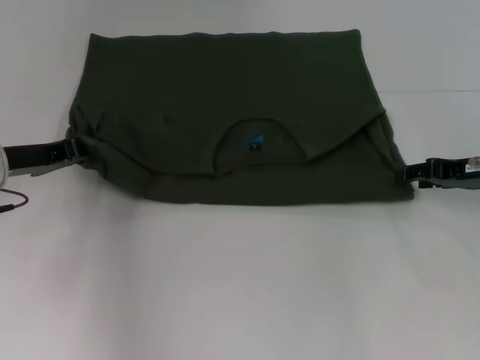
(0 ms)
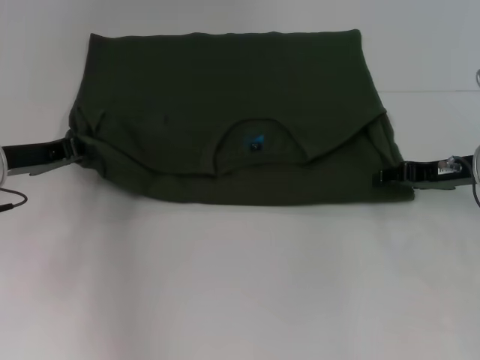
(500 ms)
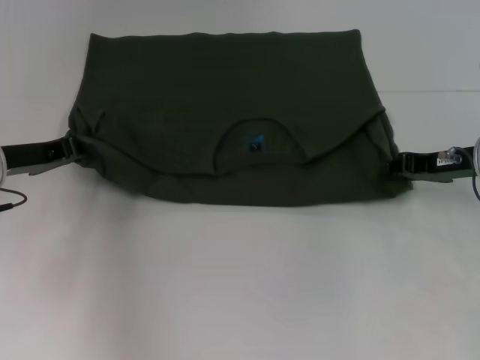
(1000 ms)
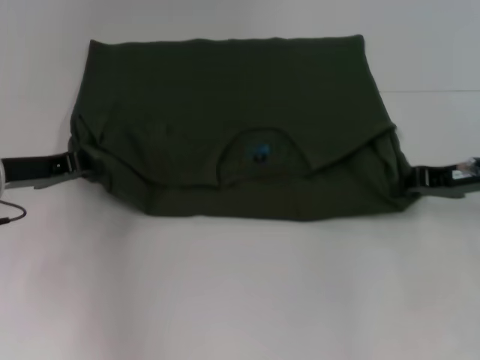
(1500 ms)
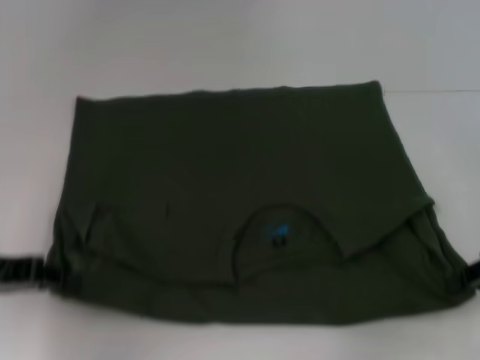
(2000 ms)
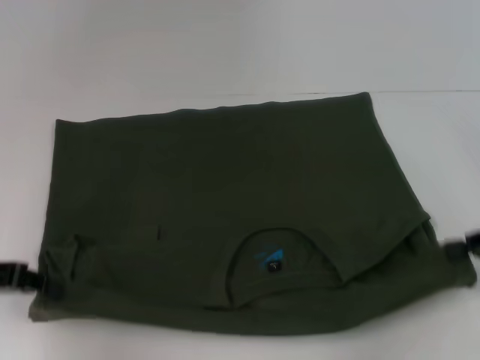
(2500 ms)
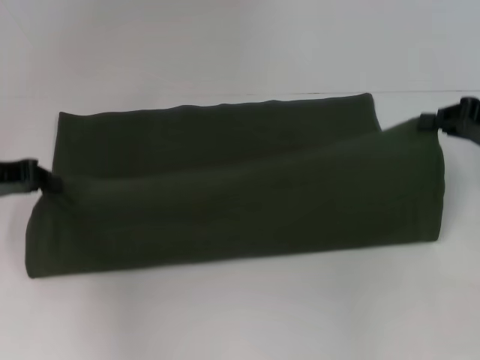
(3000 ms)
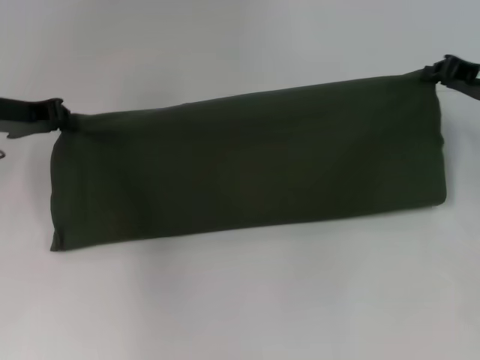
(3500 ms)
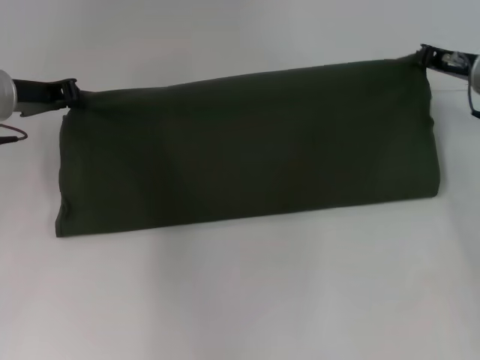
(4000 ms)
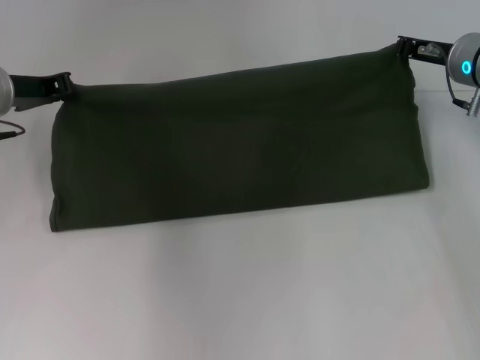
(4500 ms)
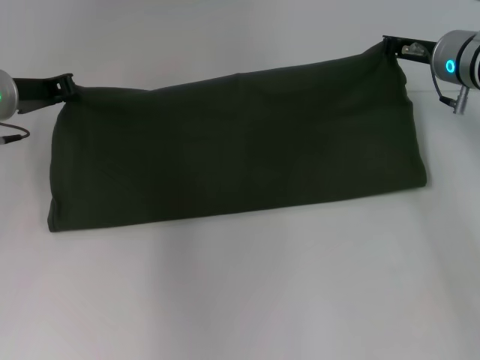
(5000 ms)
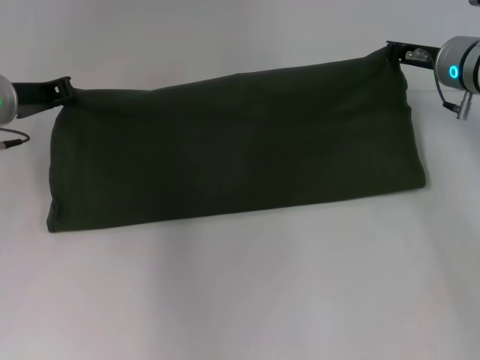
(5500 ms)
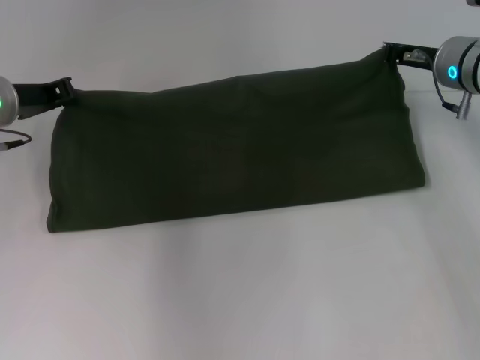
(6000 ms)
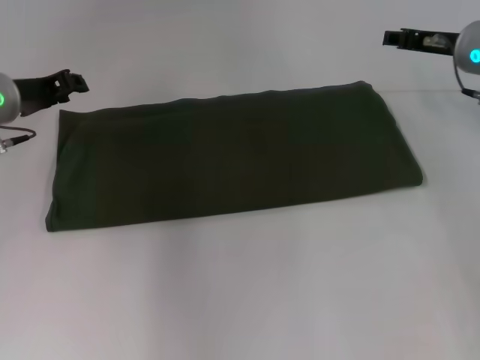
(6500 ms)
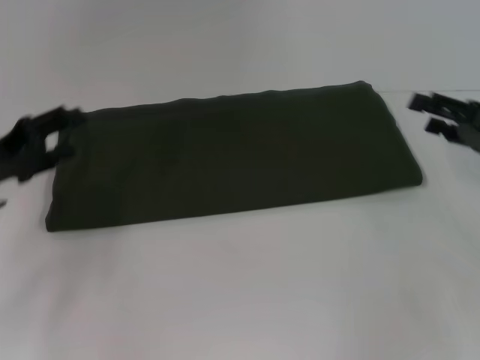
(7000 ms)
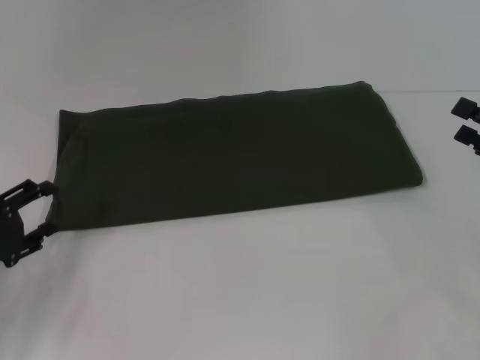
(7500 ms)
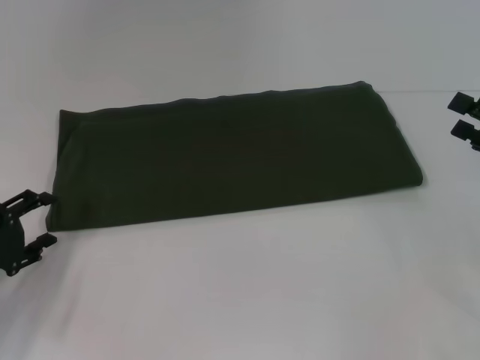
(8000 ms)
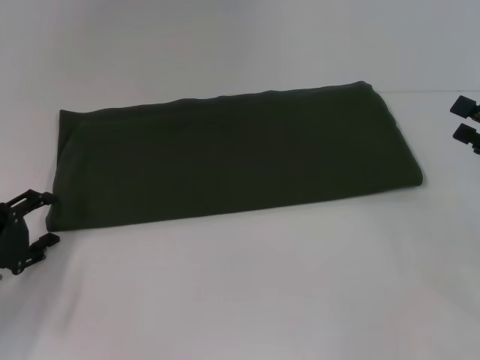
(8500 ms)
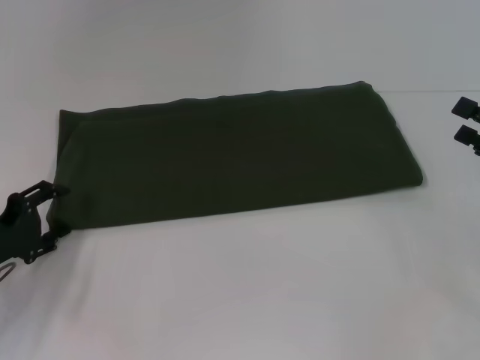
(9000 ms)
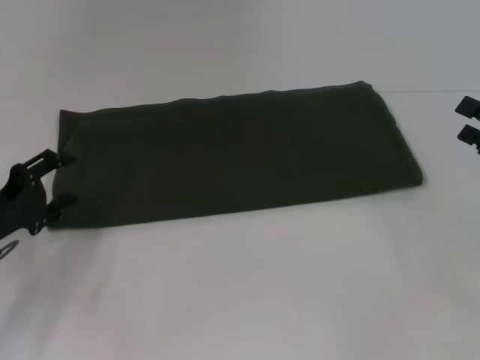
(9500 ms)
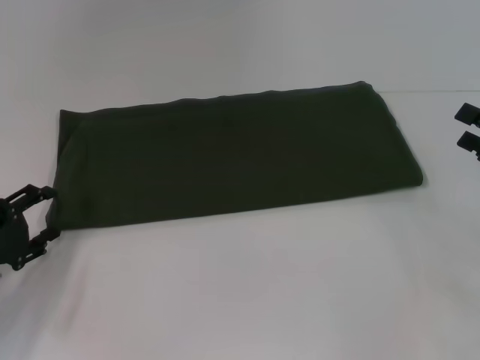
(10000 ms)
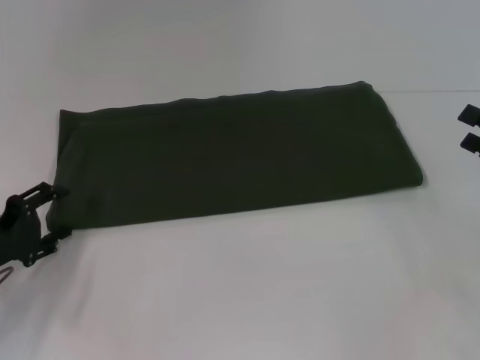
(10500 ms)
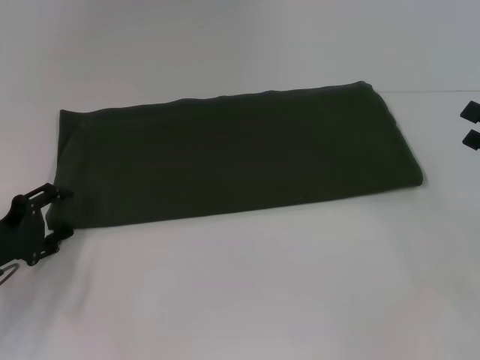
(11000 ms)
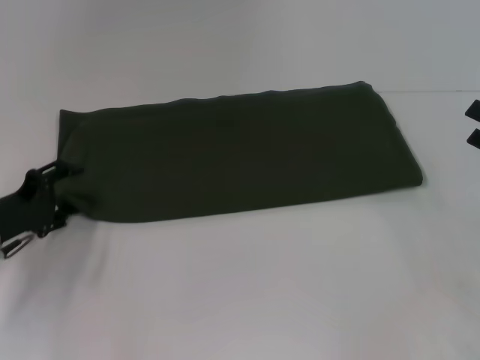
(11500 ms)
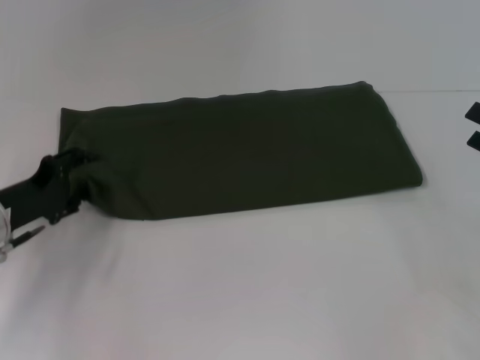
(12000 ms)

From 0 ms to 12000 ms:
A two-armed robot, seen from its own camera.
Step, from 0 ms to 2000 ms: Pull the clothes with your left hand.
Step, from 0 ms to 2000 ms: Pull the clothes with your right hand.
Step, from 2500 ms to 7000 ms: Fold the clothes with your right hand.
From 0 ms to 2000 ms: Both grippers travel together backward, approximately 10 cm. The right gripper closes its fingers.
From 2000 ms to 4000 ms: The right gripper travels forward and to the left by some 15 cm, while the left gripper travels forward by approximately 15 cm.
From 4000 ms to 6000 ms: The grippers move only a little.
From 6000 ms to 8000 ms: The left gripper heads backward and downward, covering some 20 cm, and opens; the right gripper heads backward and to the right, covering about 20 cm, and opens.
From 8000 ms to 10000 ms: The grippers stay close to where they were, moving slightly.
From 10000 ms to 12000 ms: The left gripper moves forward, about 5 cm.

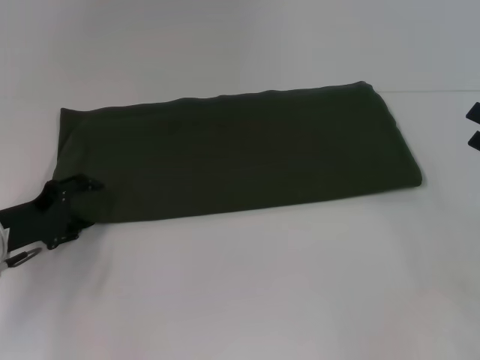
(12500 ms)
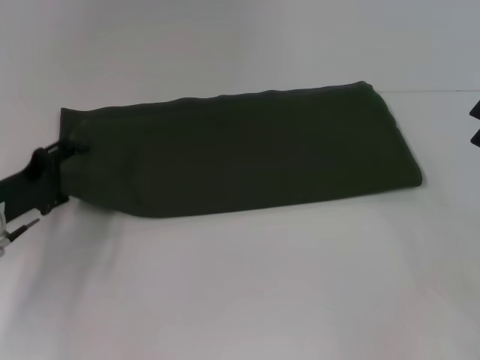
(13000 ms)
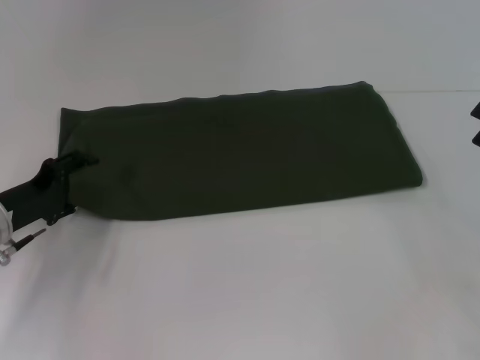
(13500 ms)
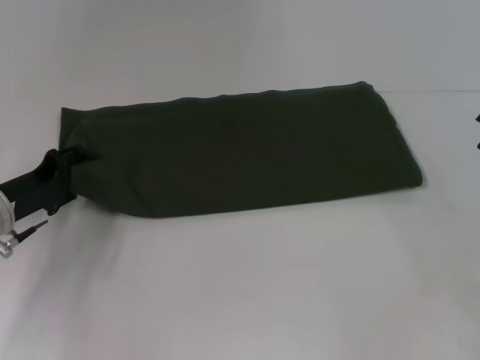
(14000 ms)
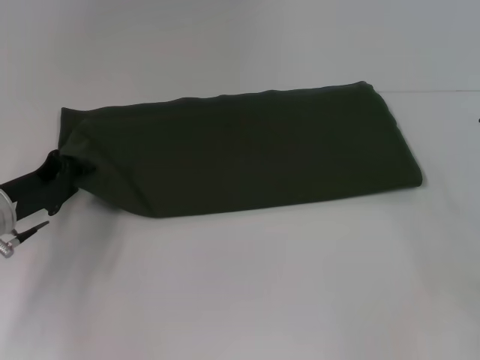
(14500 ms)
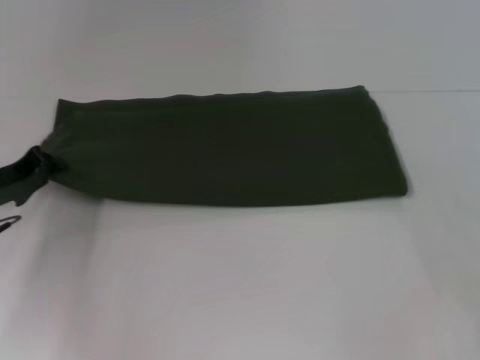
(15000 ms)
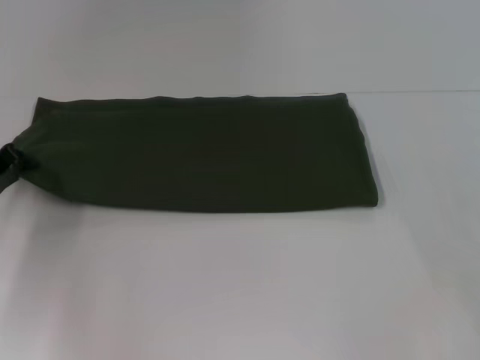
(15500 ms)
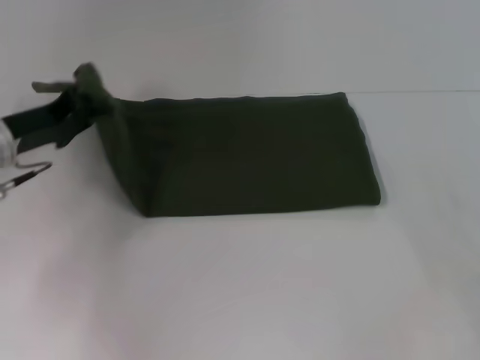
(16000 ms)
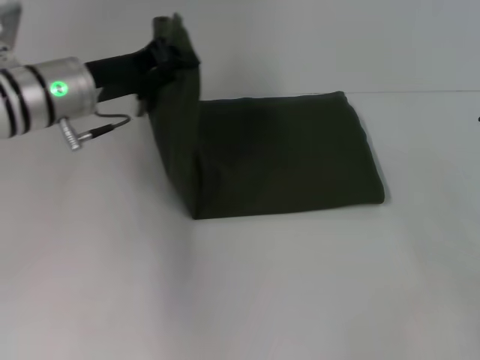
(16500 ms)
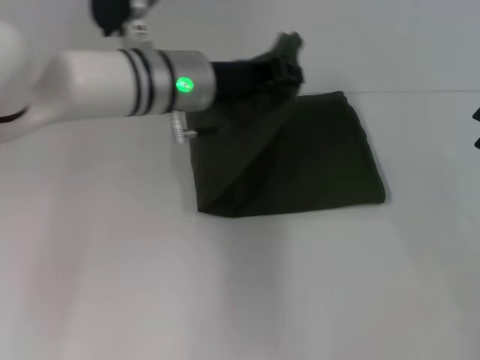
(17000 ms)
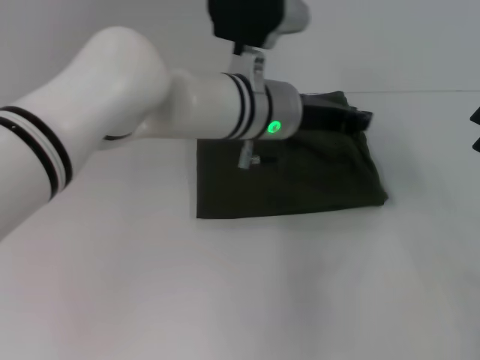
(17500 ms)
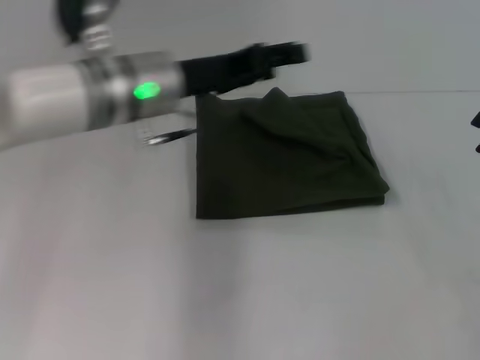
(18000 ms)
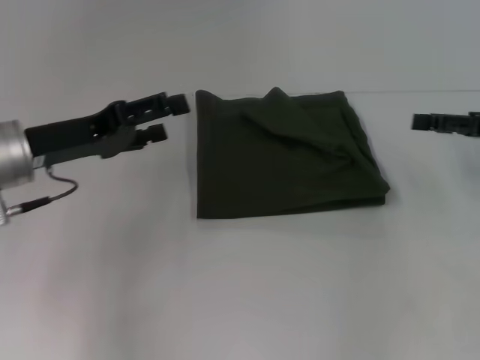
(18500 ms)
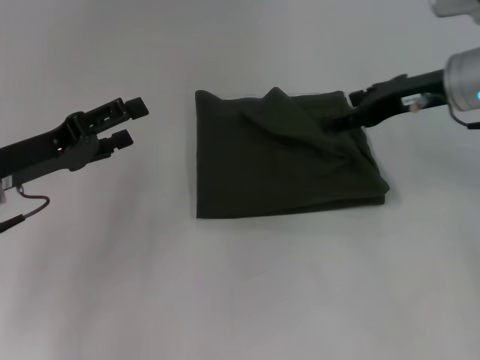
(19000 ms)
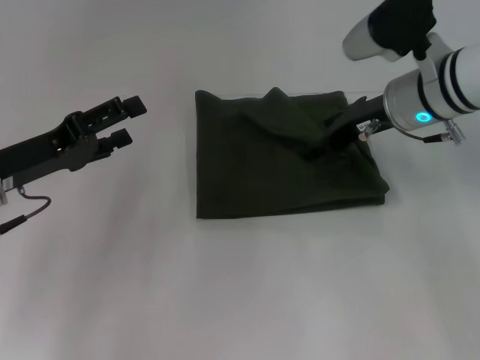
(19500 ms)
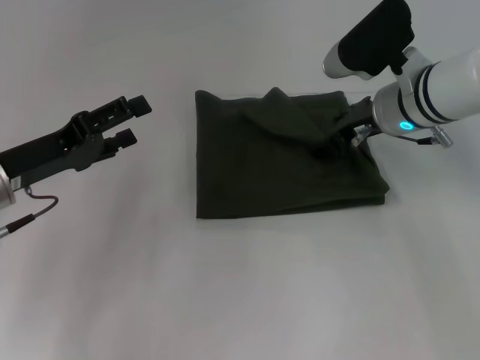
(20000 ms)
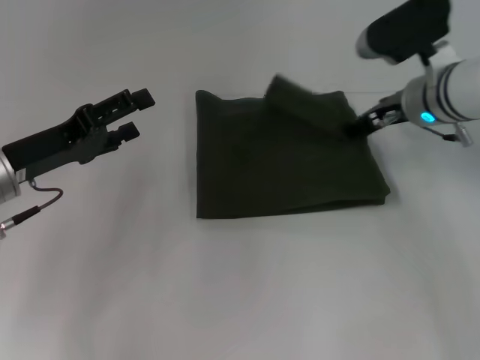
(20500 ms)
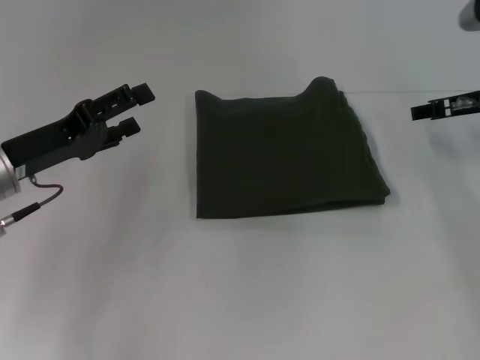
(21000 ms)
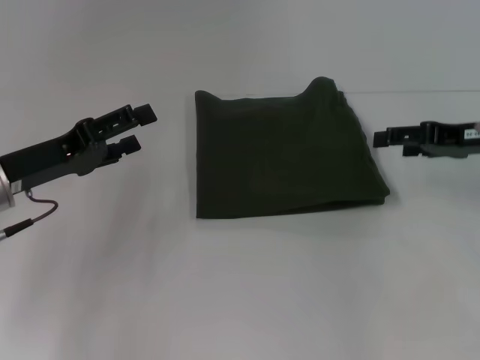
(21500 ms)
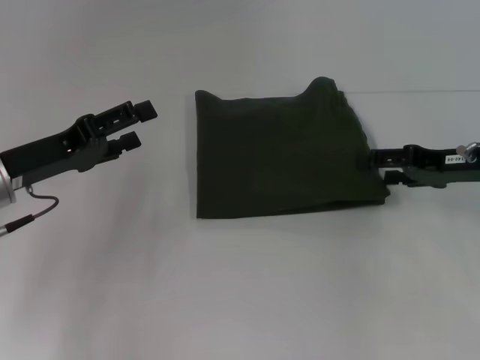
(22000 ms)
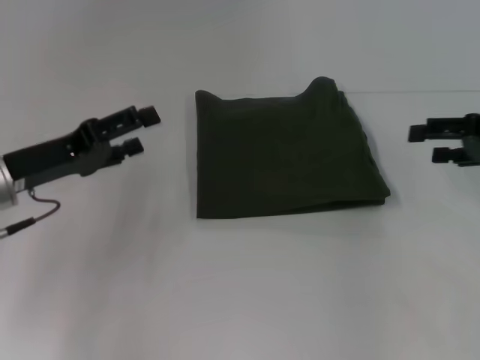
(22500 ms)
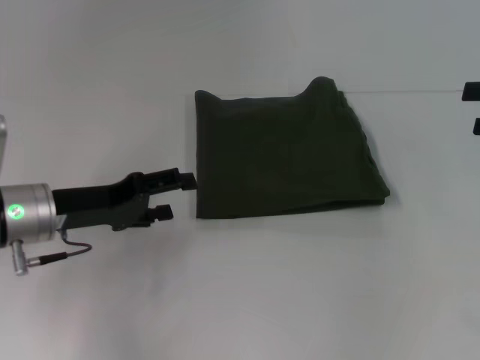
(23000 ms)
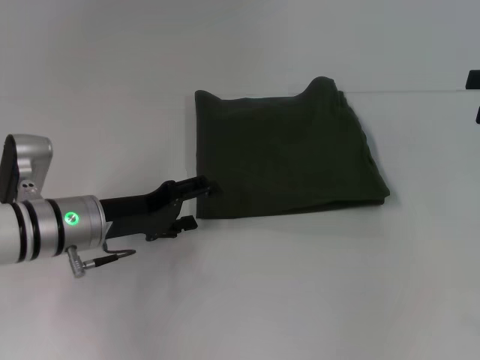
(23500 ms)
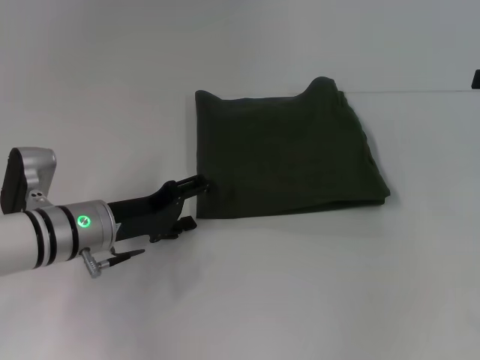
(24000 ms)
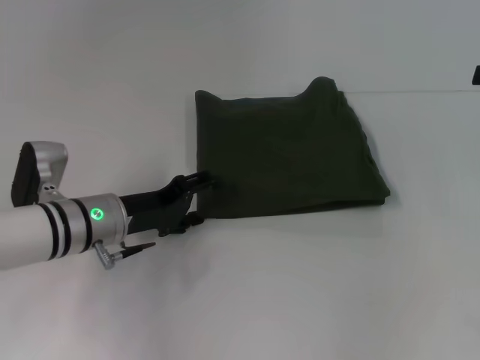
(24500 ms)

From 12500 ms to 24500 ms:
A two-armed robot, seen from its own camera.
Step, from 12500 ms to 18000 ms: Fold the clothes with your left hand.
From 12500 ms to 14500 ms: The left gripper closes up.
From 14500 ms to 16500 ms: The left gripper moves upward, to the right and forward, roughly 15 cm, and closes its fingers.
From 16500 ms to 18500 ms: The left gripper goes about 5 cm backward, reaches roughly 20 cm to the right, then returns, and opens. The right gripper shifts some 10 cm forward and upward.
From 18500 ms to 20500 ms: The right gripper shifts about 15 cm to the left and forward.
From 20500 ms to 22500 ms: The right gripper goes about 15 cm to the right and backward.
From 22500 ms to 24500 ms: The right gripper ends up roughly 5 cm from where it was, while the left gripper travels to the right and downward by approximately 10 cm.

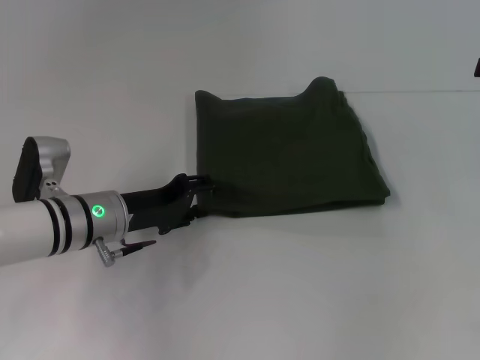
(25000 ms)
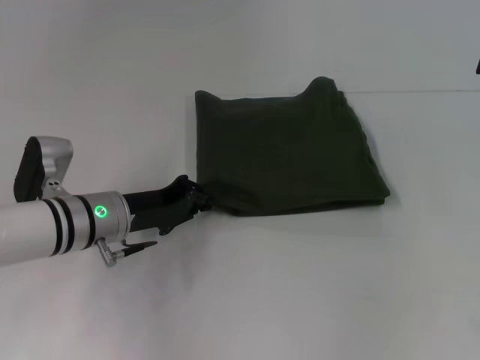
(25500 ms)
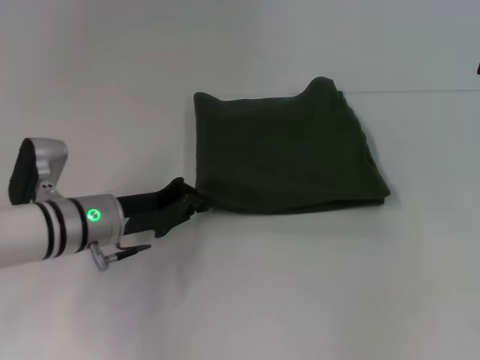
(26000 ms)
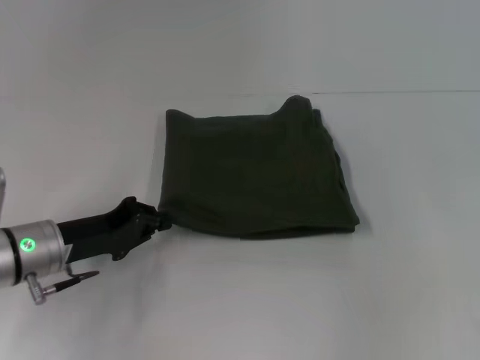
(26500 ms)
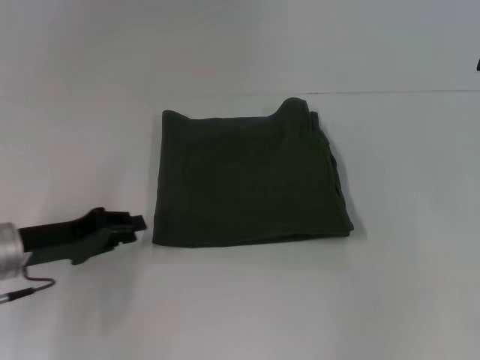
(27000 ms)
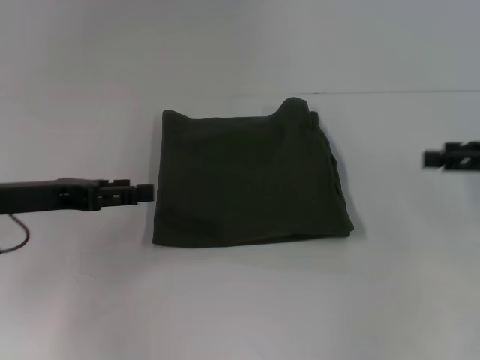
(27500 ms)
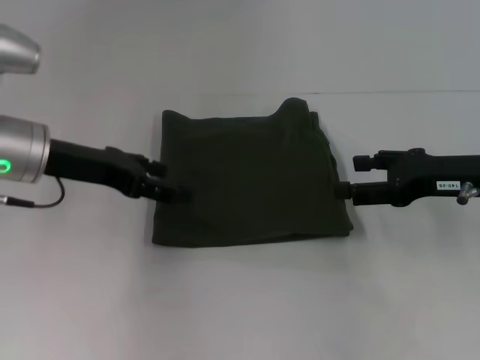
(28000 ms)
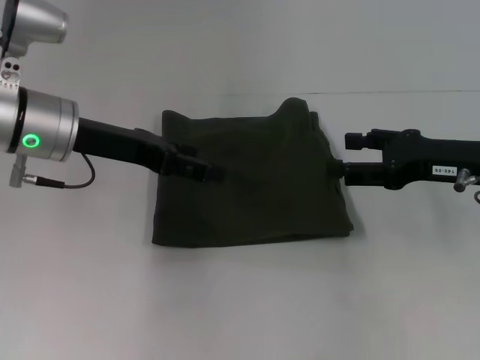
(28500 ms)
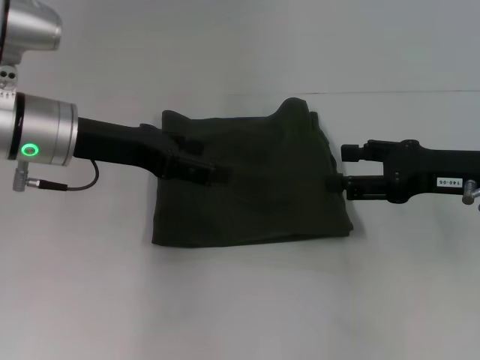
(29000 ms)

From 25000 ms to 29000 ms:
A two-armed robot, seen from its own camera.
From 25000 ms to 27000 ms: The left gripper moves to the left, roughly 10 cm, and closes its fingers.
From 27000 ms to 29000 ms: The right gripper is displaced to the left and downward by about 15 cm. The left gripper shifts roughly 15 cm upward, forward and to the right, and opens its fingers.
